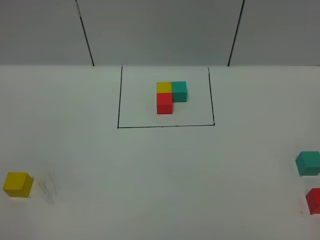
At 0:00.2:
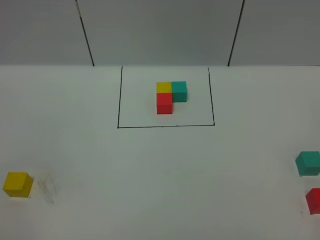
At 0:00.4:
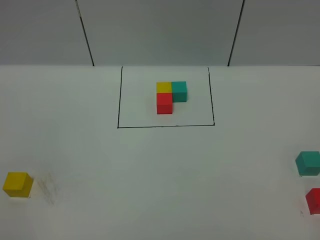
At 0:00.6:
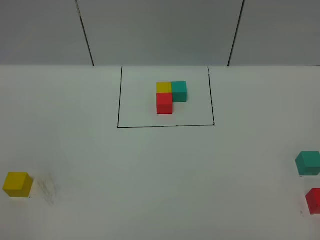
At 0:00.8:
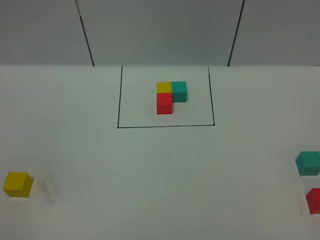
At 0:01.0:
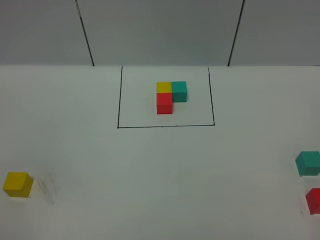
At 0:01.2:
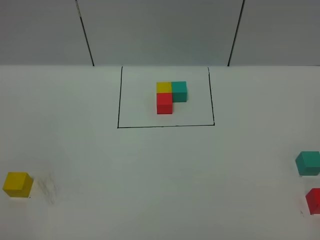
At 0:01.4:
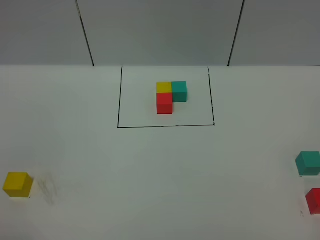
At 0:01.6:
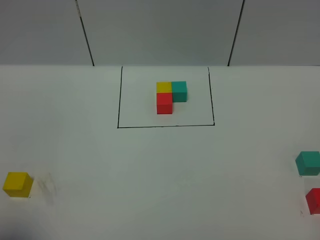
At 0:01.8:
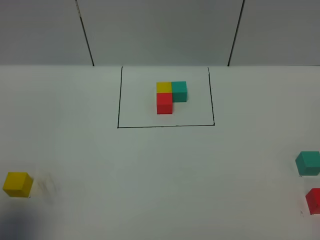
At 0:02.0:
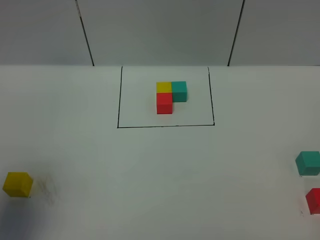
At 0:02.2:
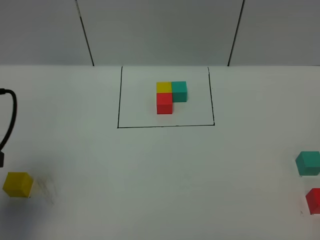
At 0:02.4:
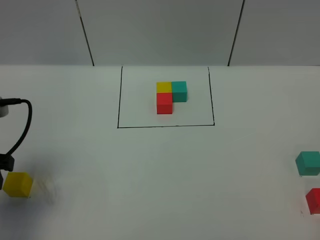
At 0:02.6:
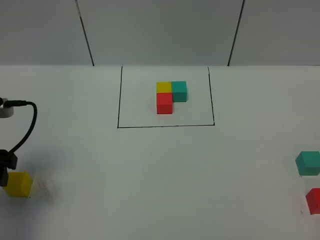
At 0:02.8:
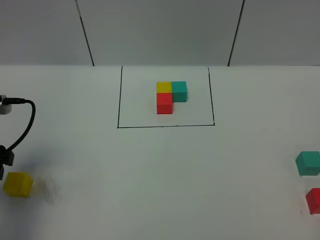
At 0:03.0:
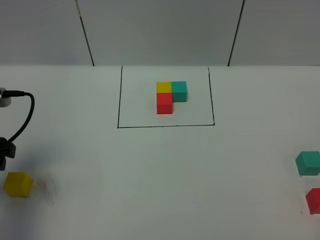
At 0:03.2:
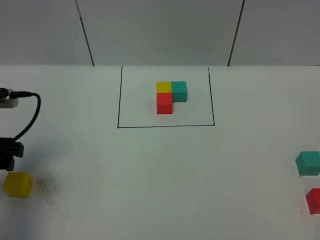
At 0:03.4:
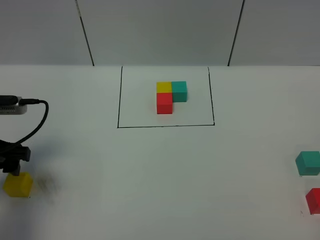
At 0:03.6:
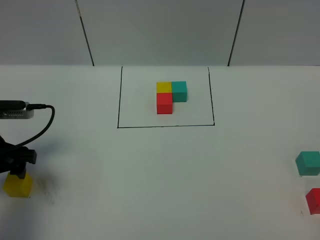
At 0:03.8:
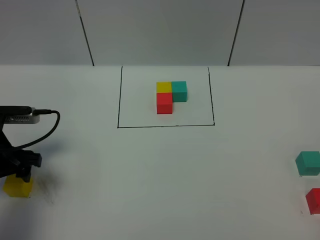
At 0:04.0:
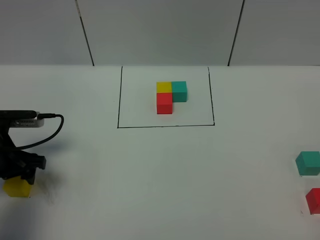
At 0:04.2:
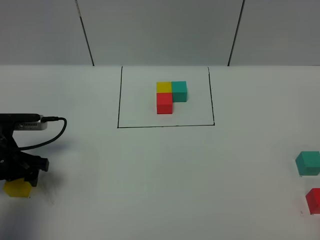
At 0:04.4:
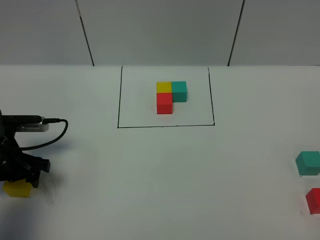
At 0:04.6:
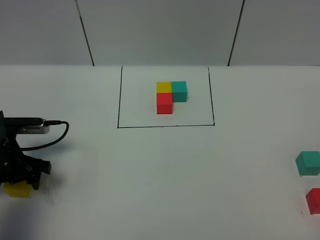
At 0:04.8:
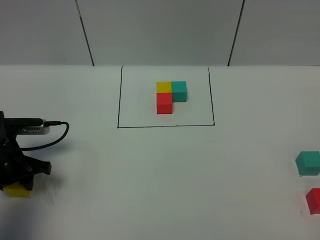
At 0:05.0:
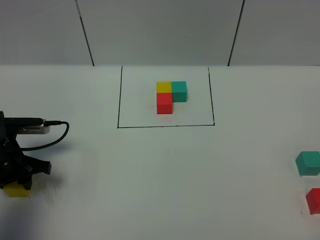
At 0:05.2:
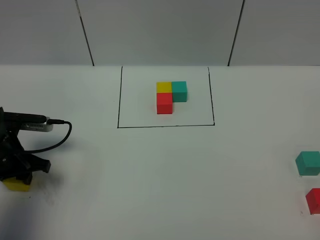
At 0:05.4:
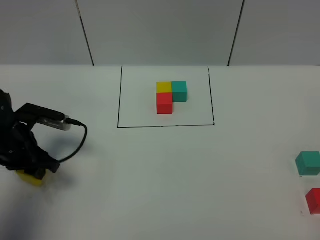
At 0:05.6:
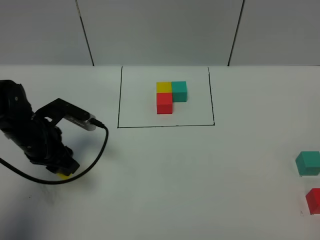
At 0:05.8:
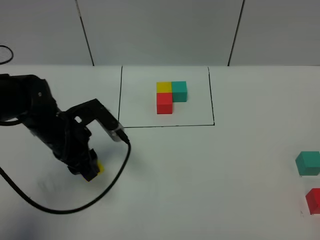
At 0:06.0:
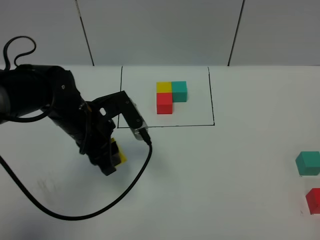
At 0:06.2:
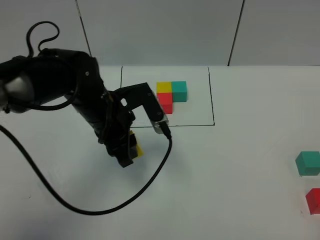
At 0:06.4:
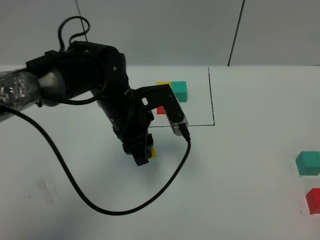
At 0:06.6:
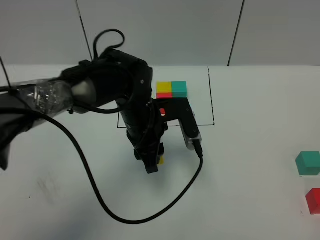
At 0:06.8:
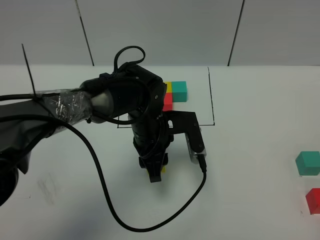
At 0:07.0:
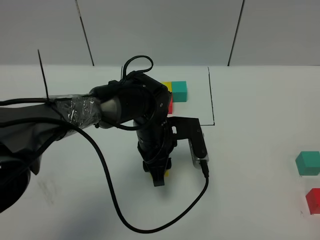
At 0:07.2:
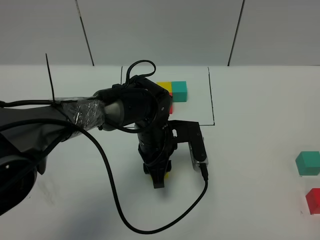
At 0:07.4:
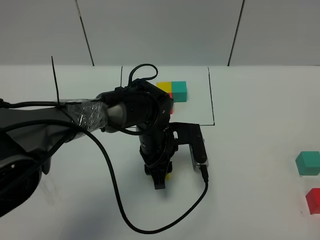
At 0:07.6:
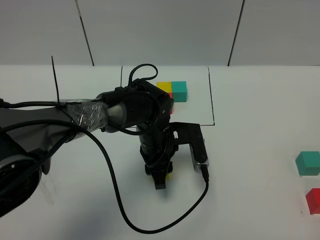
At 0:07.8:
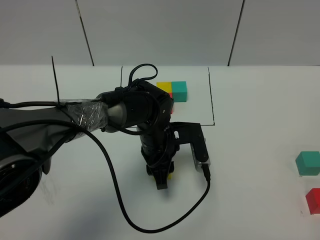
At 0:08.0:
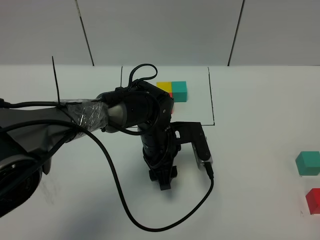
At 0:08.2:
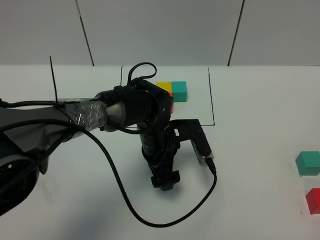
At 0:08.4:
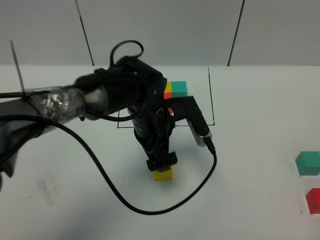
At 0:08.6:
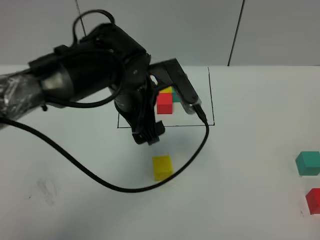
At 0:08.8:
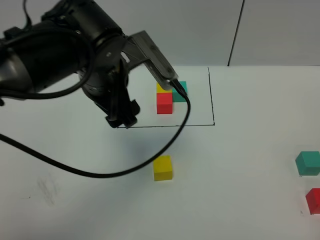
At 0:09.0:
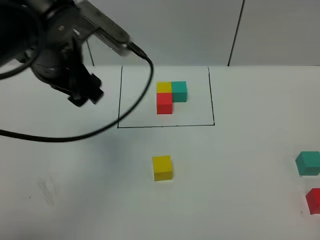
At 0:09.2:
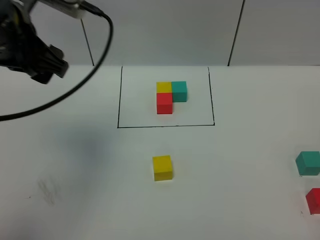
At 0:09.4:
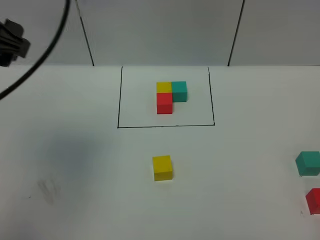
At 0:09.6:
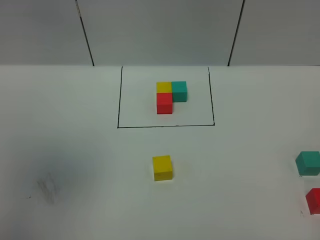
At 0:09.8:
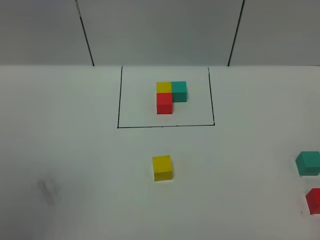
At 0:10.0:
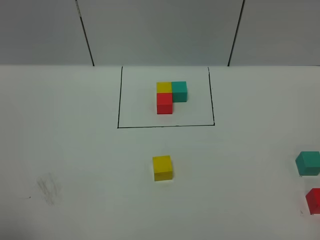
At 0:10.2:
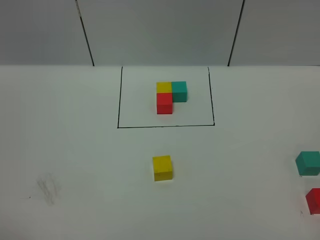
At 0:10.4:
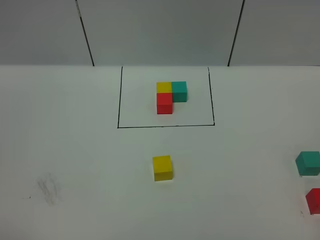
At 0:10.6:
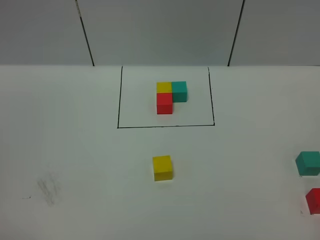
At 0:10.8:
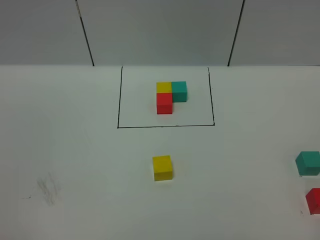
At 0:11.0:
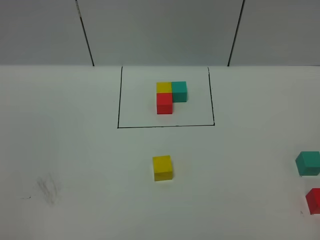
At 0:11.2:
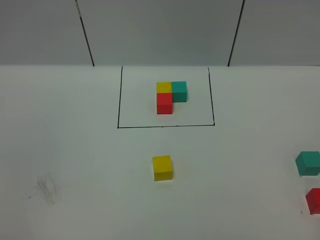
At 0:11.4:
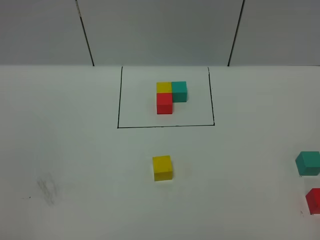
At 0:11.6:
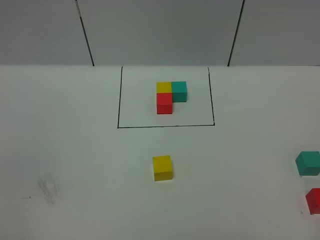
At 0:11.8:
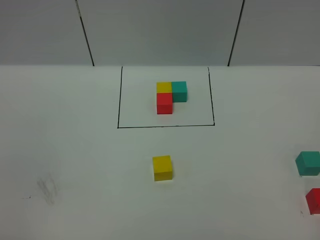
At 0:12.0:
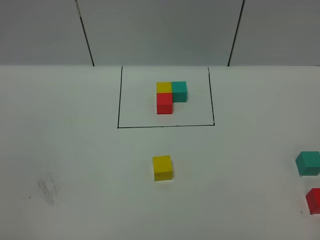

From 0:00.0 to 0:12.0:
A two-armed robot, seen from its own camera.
Task of the whole recording: According to the building block template in front, assemble the scattered blocks together.
Step, from 0:02.0 to 0:08.2: Put the yellow cube in the center of the table.
From 0:01.6 to 0:03.0: The left gripper moves forward and downward, roughly 20 cm, and opens.
From 0:03.0 to 0:04.4: The left gripper travels downward and forward by approximately 15 cm.
From 0:04.4 to 0:06.0: The left gripper shifts approximately 15 cm to the right, and closes its fingers.
From 0:06.0 to 0:07.6: The left gripper travels to the right and downward by approximately 15 cm.
From 0:07.6 to 0:09.0: The left gripper shifts about 25 cm upward and to the left, and opens.
From 0:09.0 to 0:10.4: The left gripper moves backward, to the left and upward, some 50 cm.

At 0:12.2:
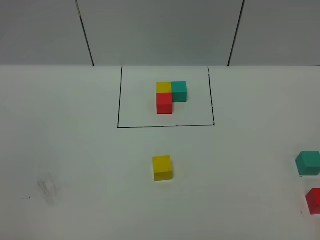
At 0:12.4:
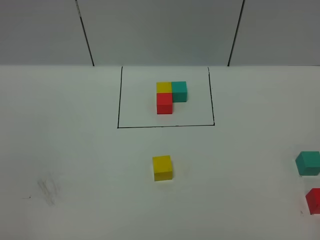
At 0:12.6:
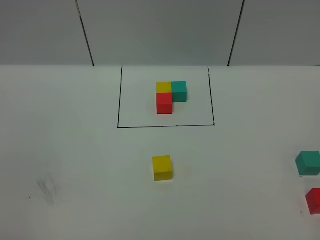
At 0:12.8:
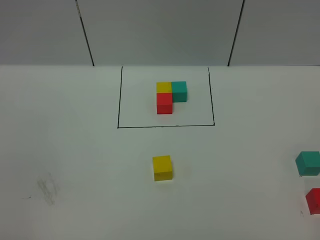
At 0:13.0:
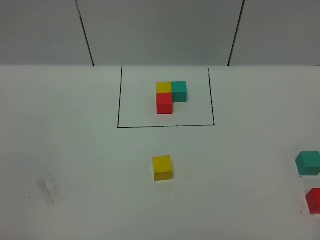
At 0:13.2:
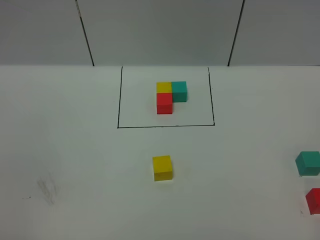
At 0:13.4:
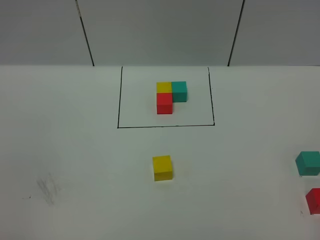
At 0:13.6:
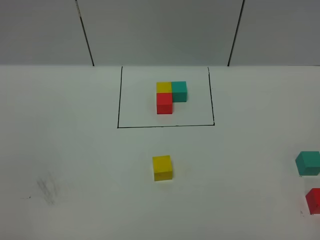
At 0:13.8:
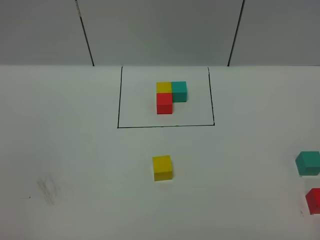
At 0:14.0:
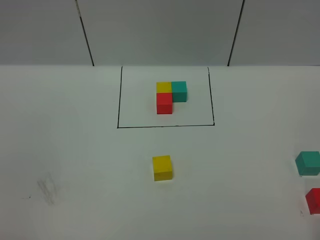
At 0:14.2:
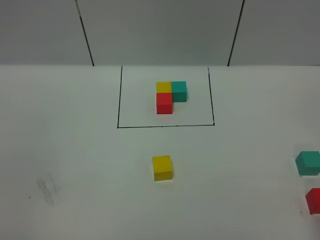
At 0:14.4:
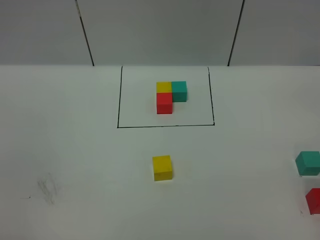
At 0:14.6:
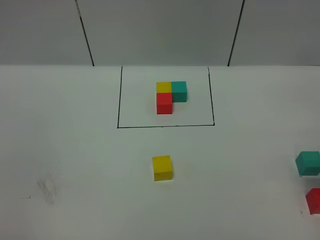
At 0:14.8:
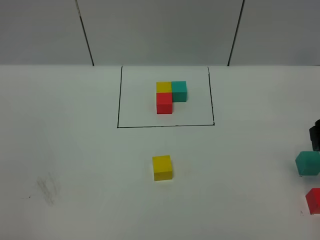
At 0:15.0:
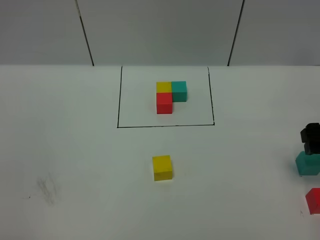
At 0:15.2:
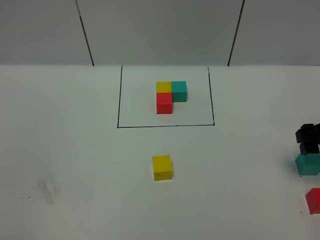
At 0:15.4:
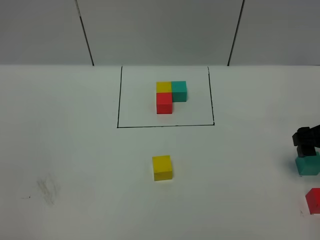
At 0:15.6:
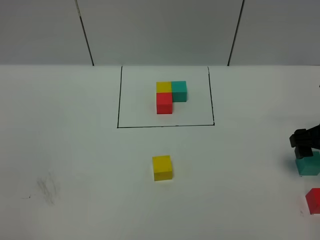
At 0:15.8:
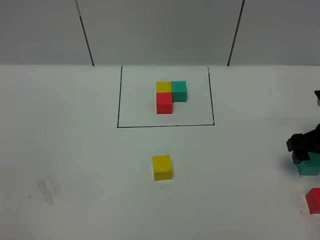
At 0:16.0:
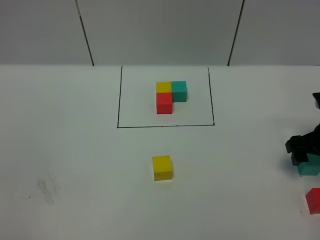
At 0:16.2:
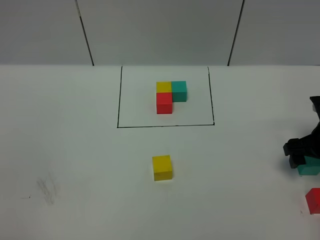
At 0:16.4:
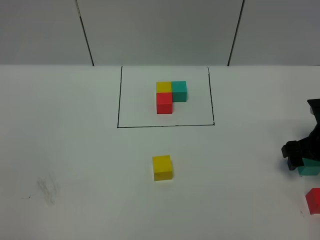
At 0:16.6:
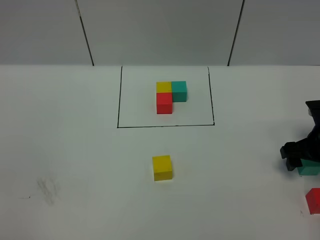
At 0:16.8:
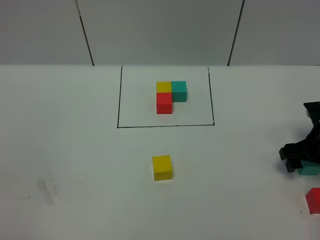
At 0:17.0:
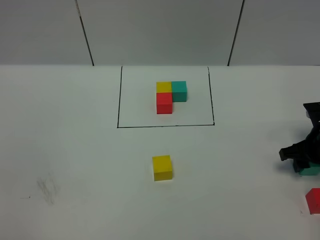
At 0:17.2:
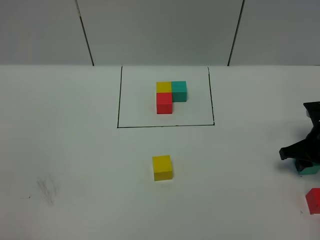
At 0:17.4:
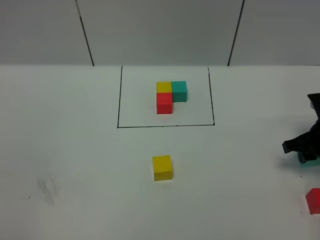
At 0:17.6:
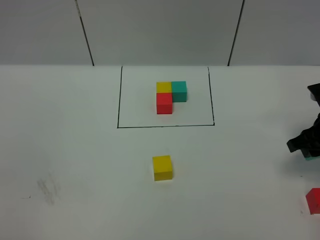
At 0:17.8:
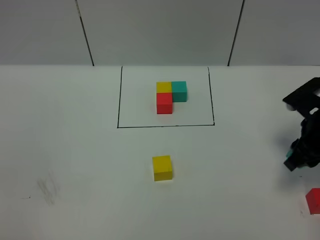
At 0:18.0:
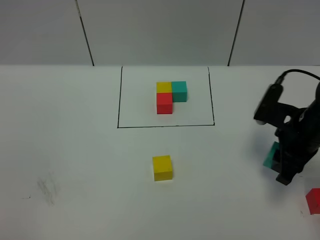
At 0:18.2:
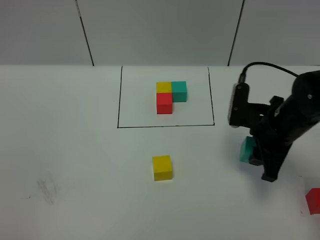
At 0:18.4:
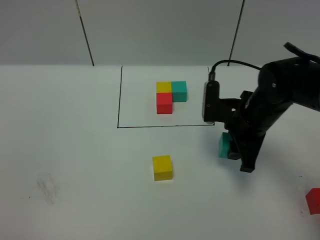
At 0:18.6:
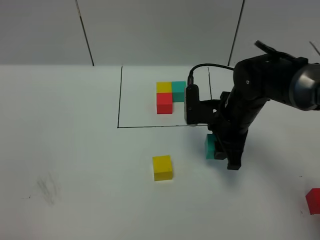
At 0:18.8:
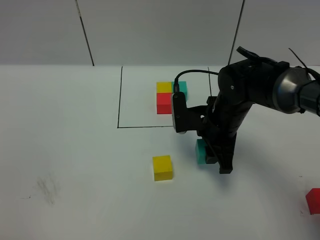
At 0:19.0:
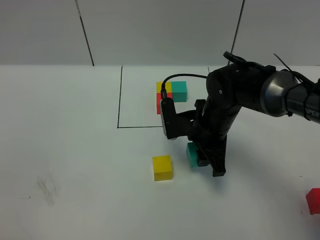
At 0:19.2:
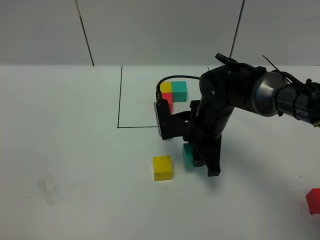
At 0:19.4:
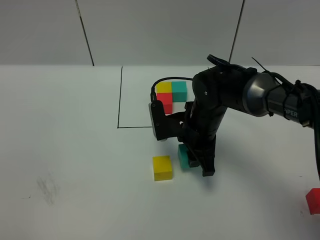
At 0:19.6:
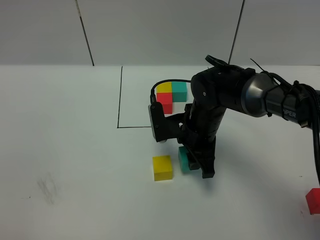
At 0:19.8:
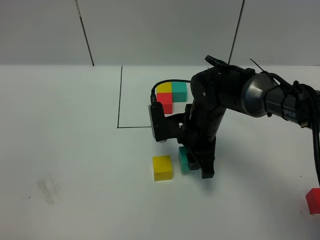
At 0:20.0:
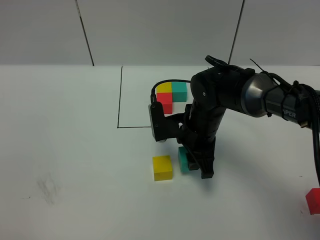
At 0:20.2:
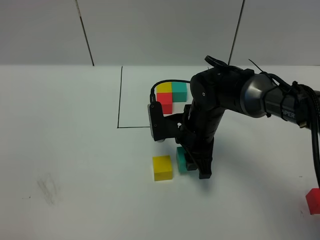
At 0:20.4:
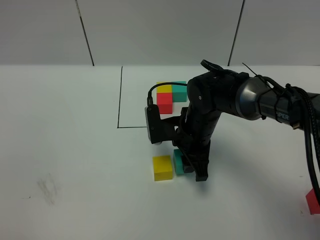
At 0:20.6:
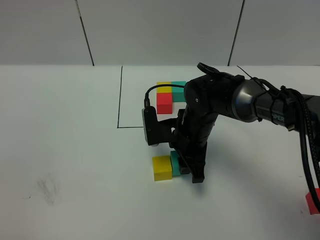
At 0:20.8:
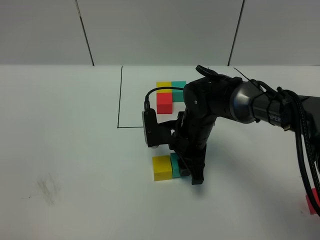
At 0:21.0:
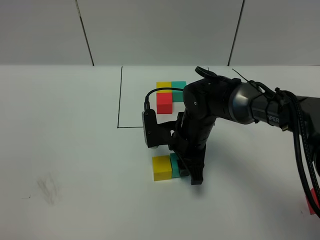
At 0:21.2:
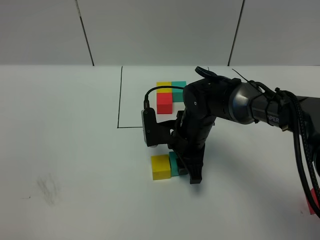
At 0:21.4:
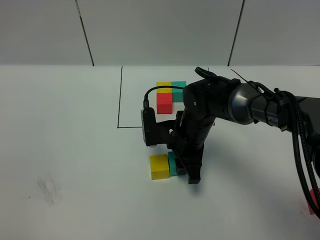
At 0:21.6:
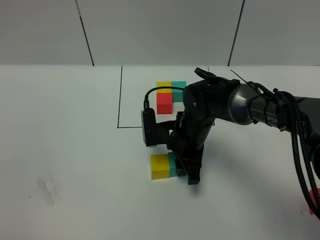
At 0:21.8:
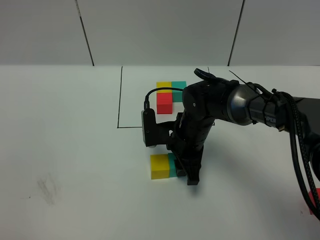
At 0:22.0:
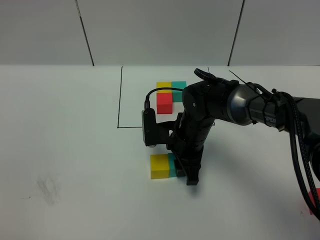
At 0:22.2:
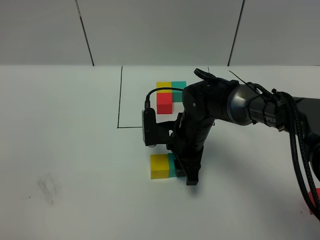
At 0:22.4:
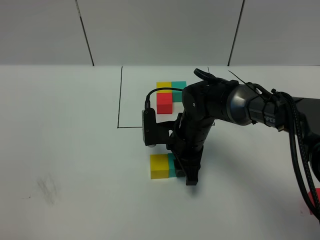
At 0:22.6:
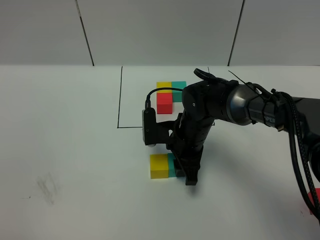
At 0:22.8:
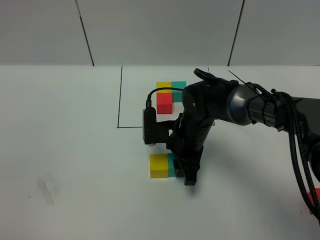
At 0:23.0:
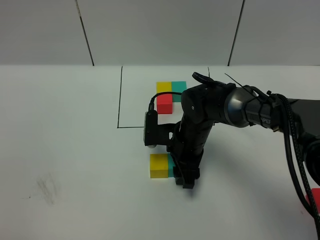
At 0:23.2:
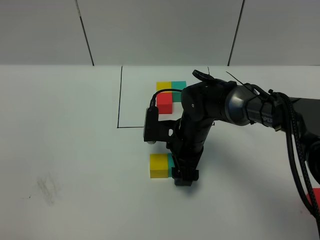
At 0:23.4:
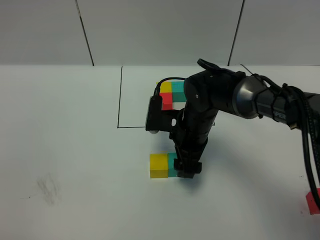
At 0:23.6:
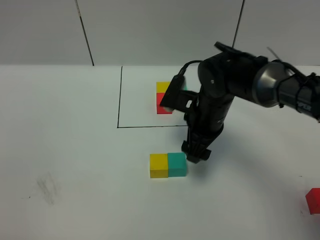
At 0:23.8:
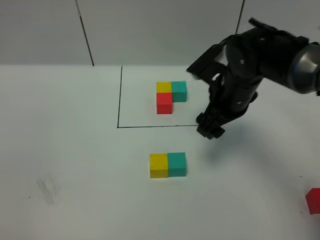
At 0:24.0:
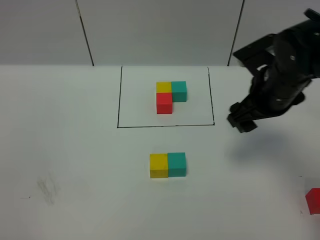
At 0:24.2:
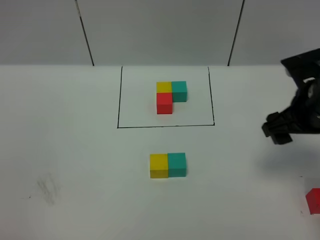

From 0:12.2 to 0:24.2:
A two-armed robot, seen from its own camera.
Task of the whole recording: According to the building block template in front, assemble the scattered blocks together.
Step, from 0:12.2 to 0:23.2: Put the green cube on the right of the yellow cube.
From 0:13.8 to 0:15.2: The right gripper shifts approximately 30 cm forward.
From 0:15.2 to 0:16.6: The right gripper travels downward by roughly 10 cm.
From 0:16.6 to 0:18.2: The right gripper moves to the left and upward, roughly 15 cm, and closes up.
From 0:18.2 to 0:19.8: The right gripper goes approximately 15 cm to the left.
From 0:19.8 to 0:21.2: The grippers make only small movements.
From 0:21.2 to 0:22.6: Both grippers stay about where they are.
From 0:22.6 to 0:24.2: The right gripper heads to the right and upward, covering some 25 cm, and opens.
